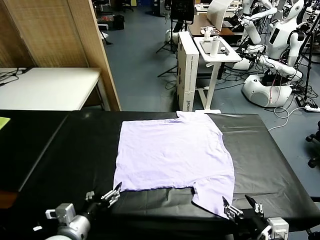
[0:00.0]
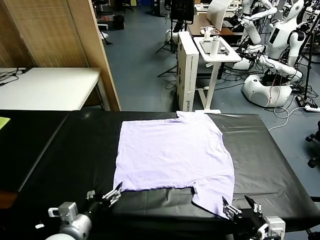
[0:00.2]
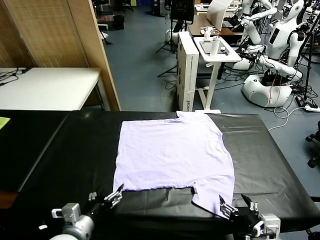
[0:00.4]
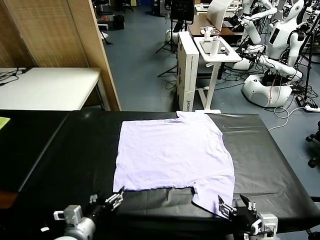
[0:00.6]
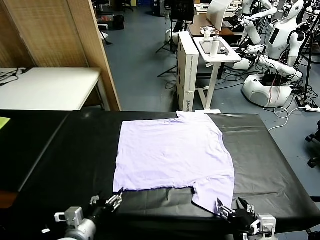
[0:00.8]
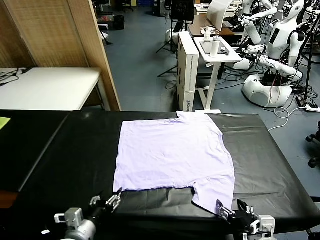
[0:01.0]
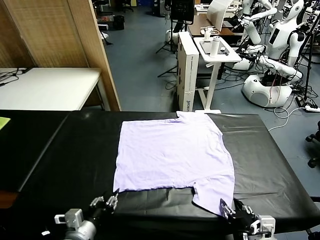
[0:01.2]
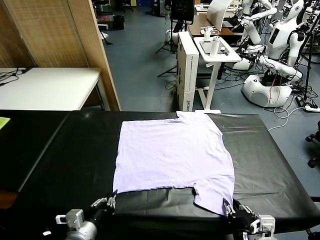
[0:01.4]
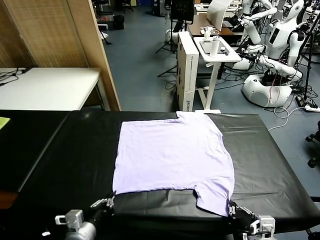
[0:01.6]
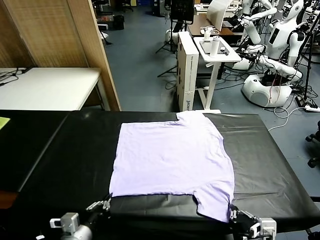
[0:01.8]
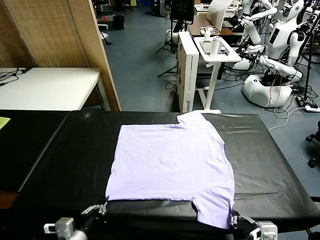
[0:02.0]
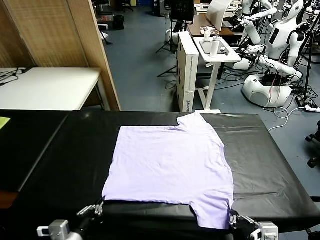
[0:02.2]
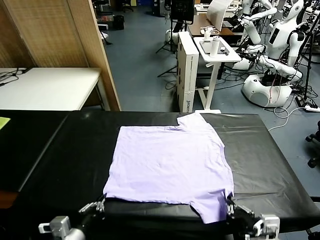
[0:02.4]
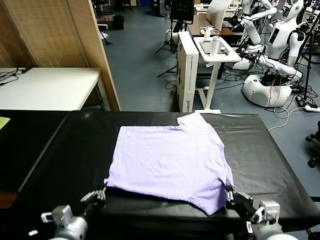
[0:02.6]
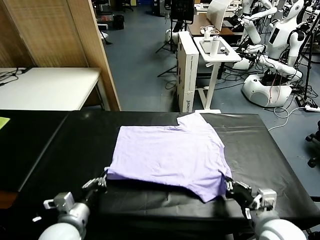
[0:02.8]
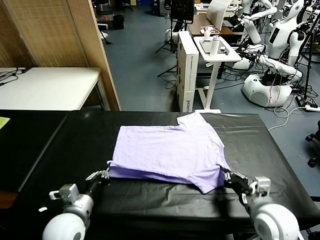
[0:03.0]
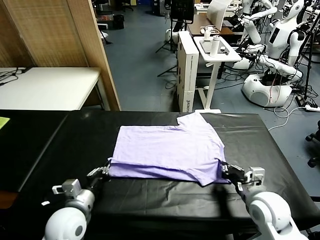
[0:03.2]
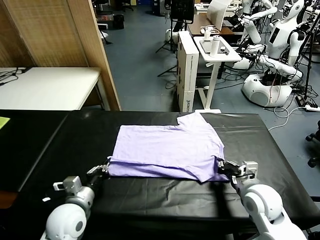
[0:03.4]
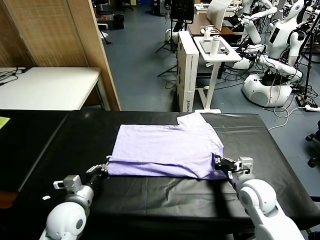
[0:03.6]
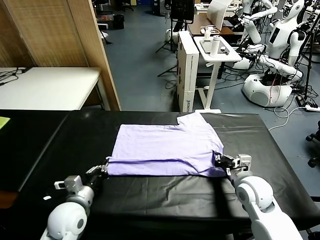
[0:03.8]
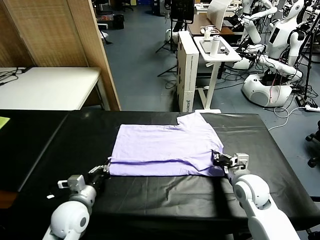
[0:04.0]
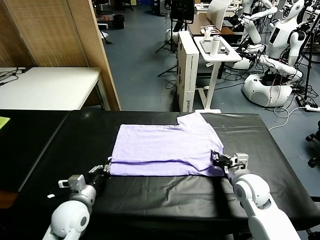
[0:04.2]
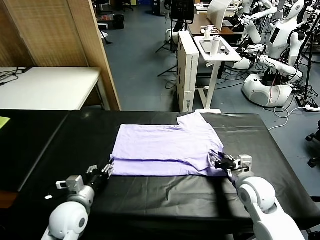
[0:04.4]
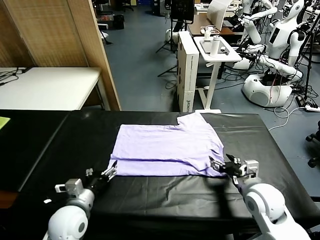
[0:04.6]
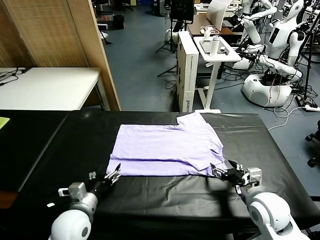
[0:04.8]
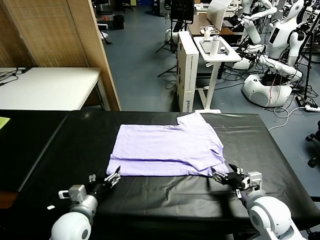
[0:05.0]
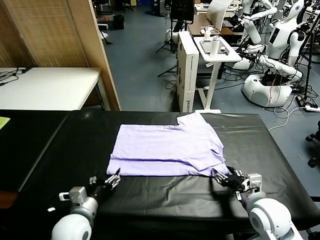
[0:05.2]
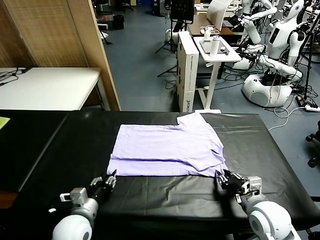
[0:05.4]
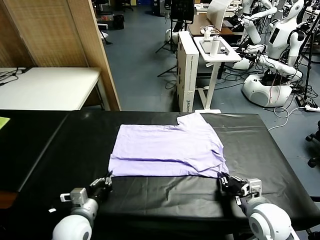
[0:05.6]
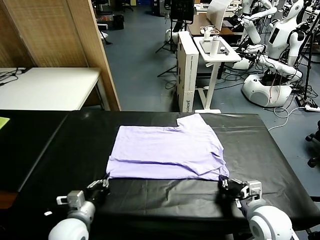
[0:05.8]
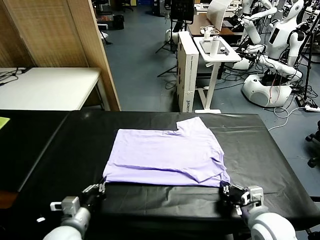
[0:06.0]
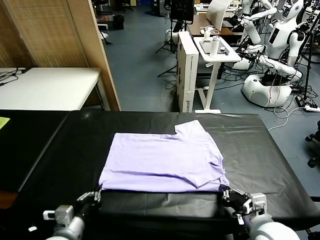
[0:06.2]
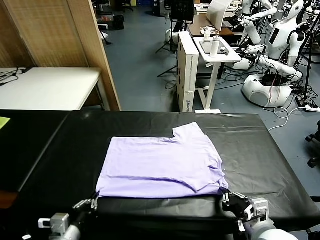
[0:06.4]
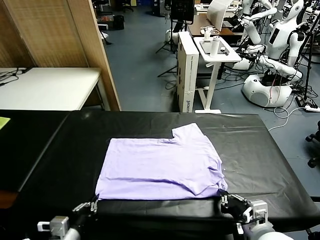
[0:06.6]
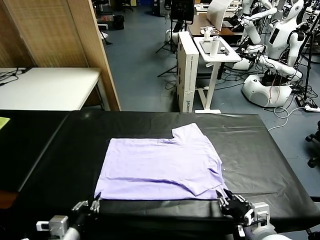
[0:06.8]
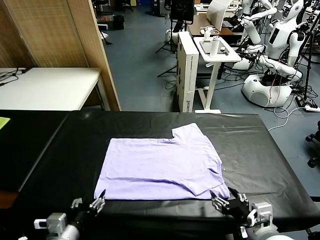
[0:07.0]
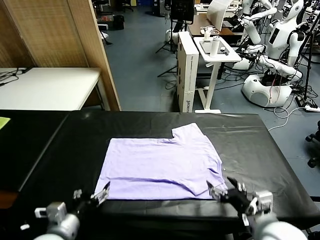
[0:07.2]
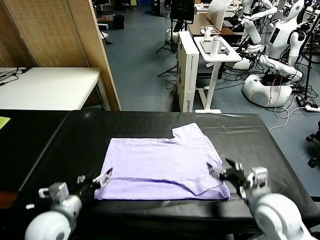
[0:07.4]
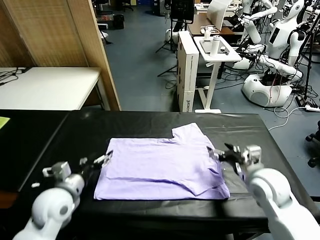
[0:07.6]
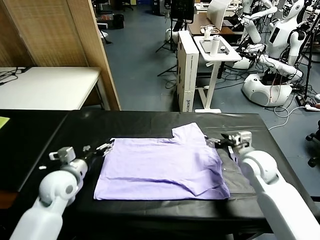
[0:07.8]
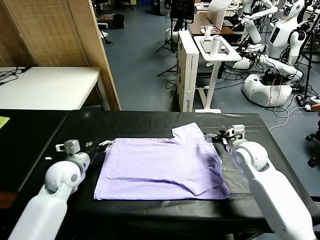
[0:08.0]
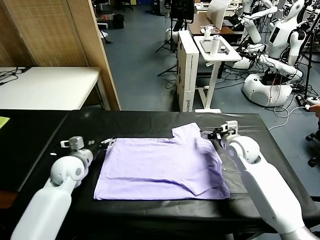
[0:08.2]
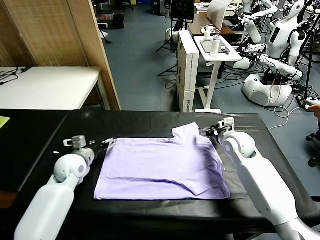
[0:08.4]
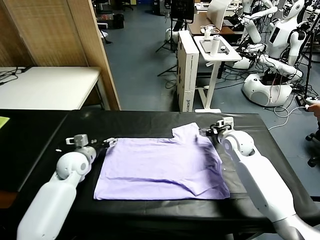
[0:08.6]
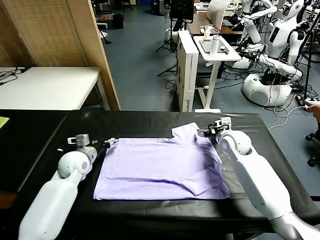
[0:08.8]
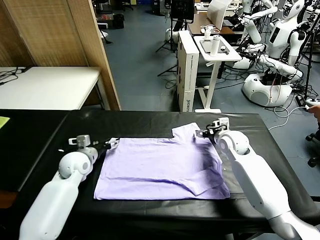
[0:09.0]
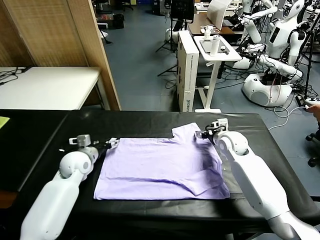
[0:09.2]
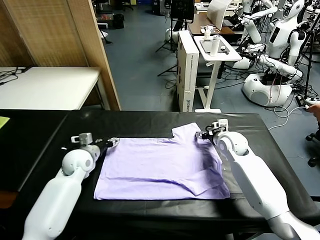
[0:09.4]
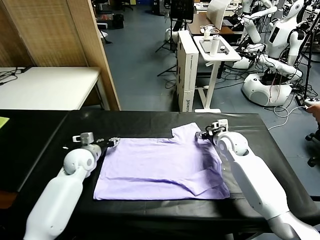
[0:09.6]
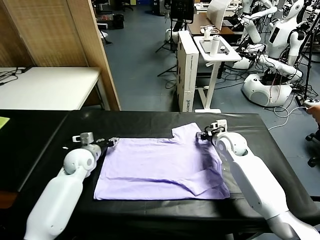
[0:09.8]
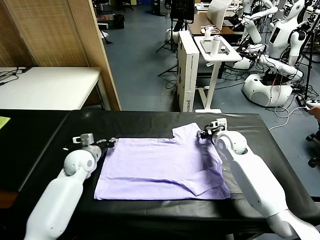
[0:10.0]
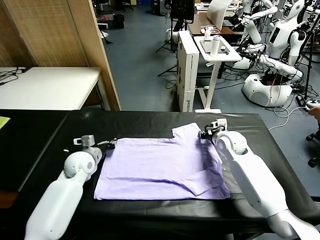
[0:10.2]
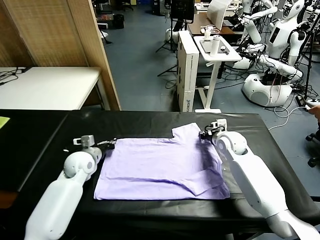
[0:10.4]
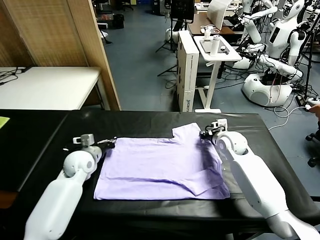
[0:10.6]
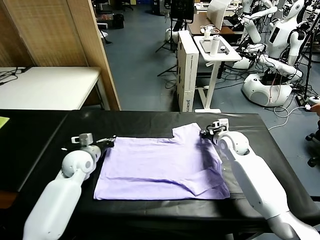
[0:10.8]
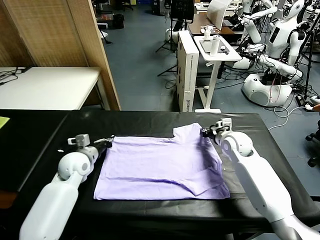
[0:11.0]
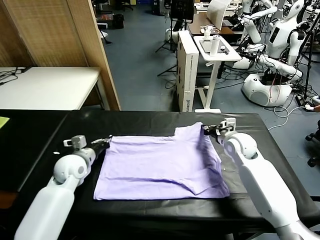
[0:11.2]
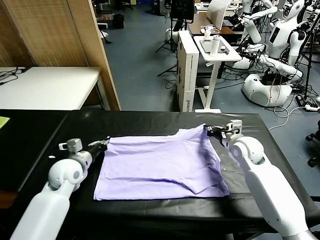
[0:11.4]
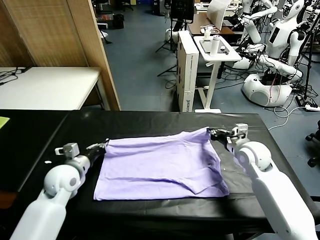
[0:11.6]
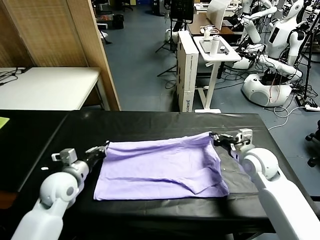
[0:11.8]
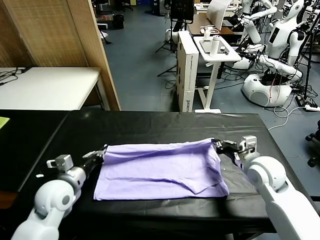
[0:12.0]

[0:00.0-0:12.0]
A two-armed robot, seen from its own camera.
Task of the whole recording: fold and organize the clothes.
Step, 0.0 to 1.6 s: use both grippers simultaneously to clamp the lower edge of the clothing fabric.
Step, 2.0 to 4.4 s: use both grippers to drag the lower edge of the fabric forward and fold it over the upper edge.
Step, 4.6 to 6.8 s: Drag the clothes downward with both gripper.
Step, 7.2 to 10.8 s: use both grippers simultaneously to clamp the upper edge of the clothing fabric.
1.6 to 3.0 s: The right gripper travels forward by approximately 15 cm, while the left gripper shifts some 10 cm forward.
3.0 to 4.4 s: The left gripper opens its fingers. Meanwhile the right gripper opens up.
4.4 to 6.0 s: Both grippers move backward, some 10 cm. The right gripper closes, while the left gripper closes.
6.0 to 7.6 s: The left gripper goes approximately 15 cm forward and upward, and opens. The right gripper moves forward, some 25 cm, and opens its fingers.
7.6 to 9.0 s: The two grippers go about 10 cm forward.
9.0 to 10.4 s: The right gripper closes. Meanwhile the left gripper closes up.
10.4 to 12.0 s: The two grippers go about 15 cm backward.

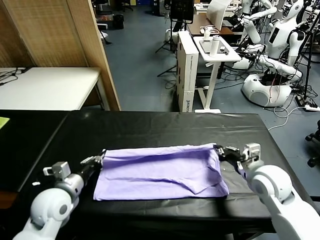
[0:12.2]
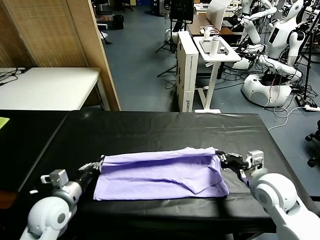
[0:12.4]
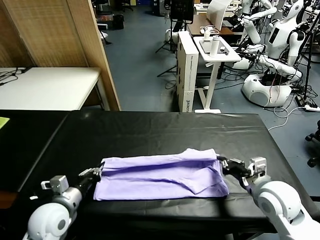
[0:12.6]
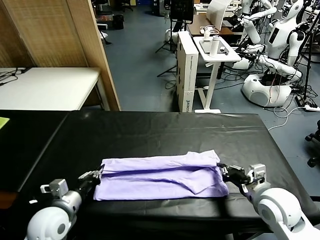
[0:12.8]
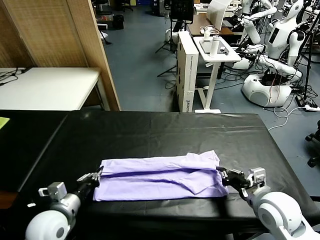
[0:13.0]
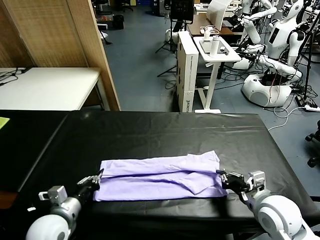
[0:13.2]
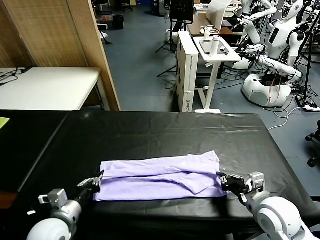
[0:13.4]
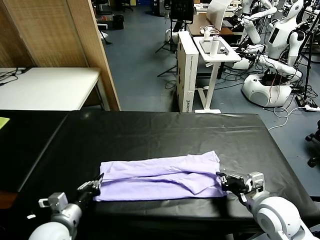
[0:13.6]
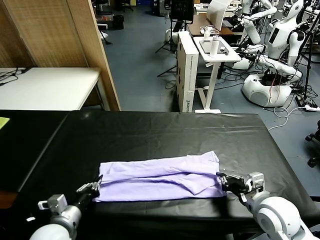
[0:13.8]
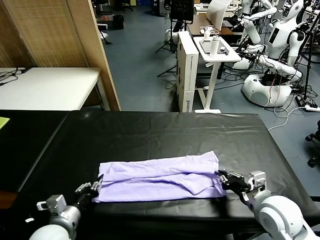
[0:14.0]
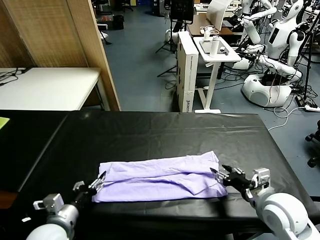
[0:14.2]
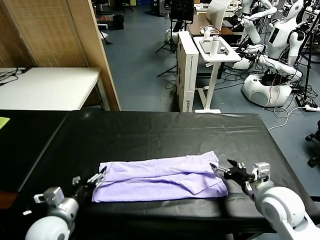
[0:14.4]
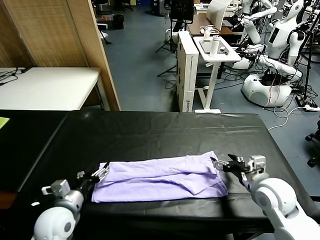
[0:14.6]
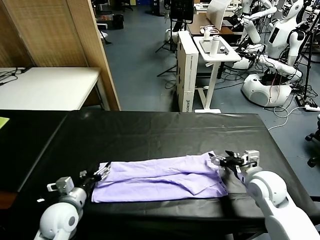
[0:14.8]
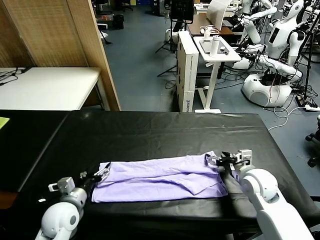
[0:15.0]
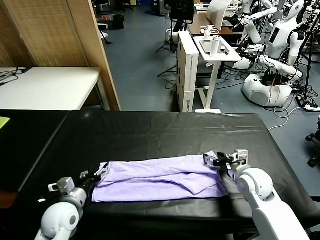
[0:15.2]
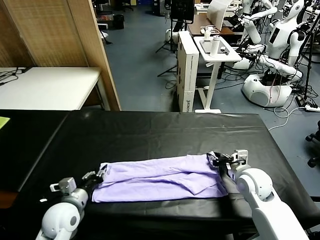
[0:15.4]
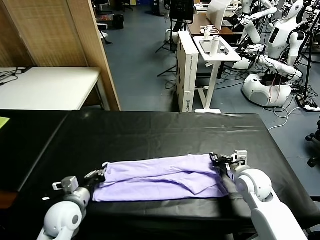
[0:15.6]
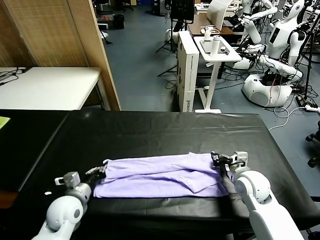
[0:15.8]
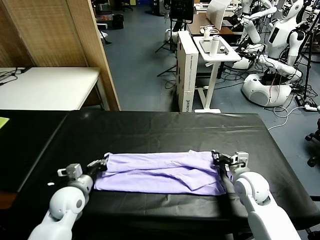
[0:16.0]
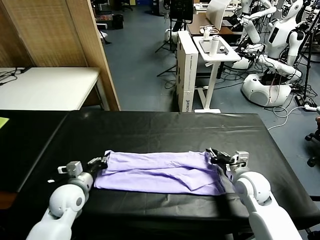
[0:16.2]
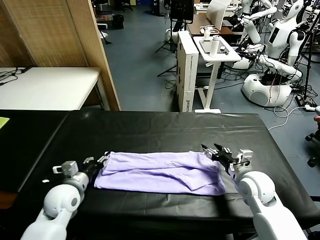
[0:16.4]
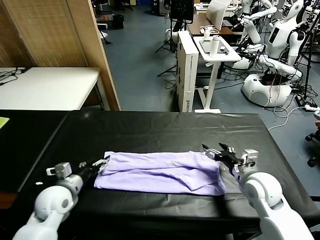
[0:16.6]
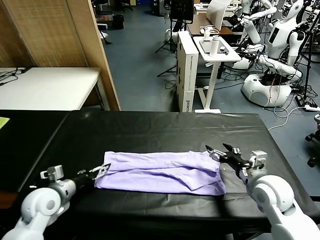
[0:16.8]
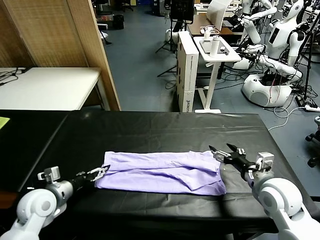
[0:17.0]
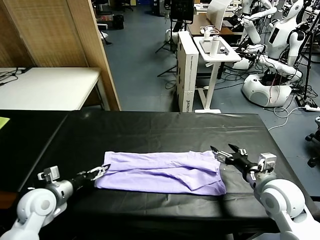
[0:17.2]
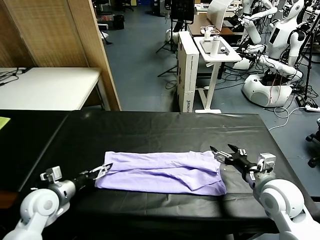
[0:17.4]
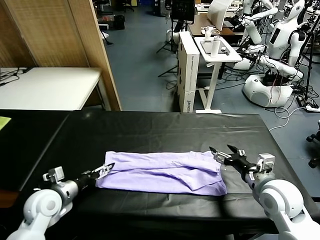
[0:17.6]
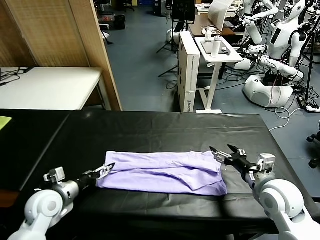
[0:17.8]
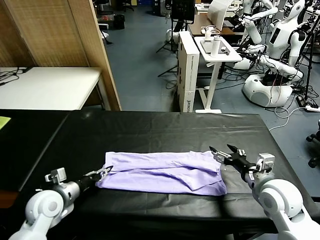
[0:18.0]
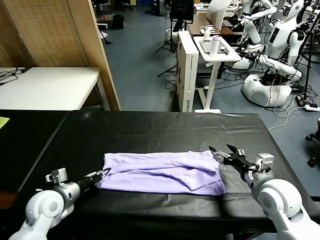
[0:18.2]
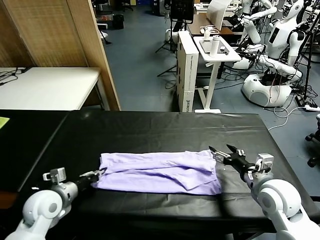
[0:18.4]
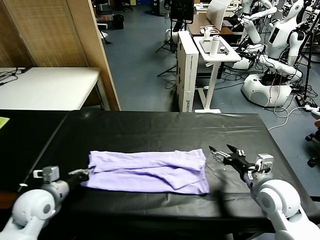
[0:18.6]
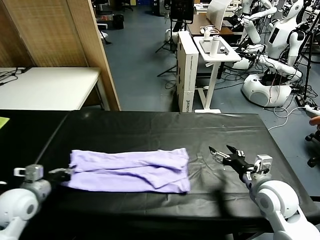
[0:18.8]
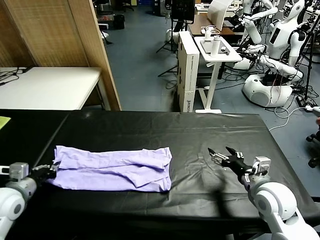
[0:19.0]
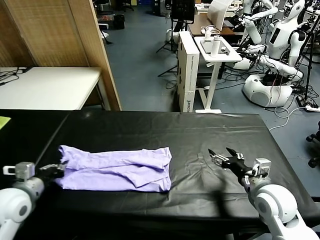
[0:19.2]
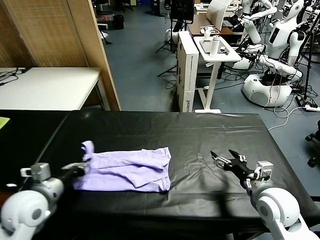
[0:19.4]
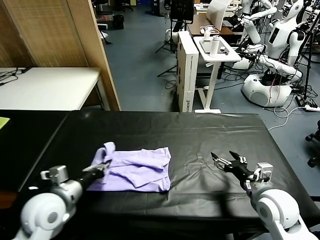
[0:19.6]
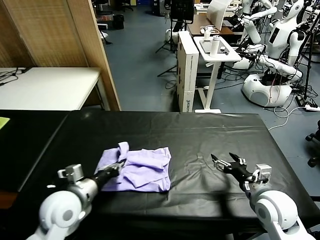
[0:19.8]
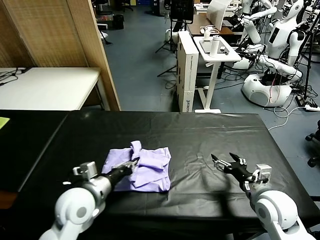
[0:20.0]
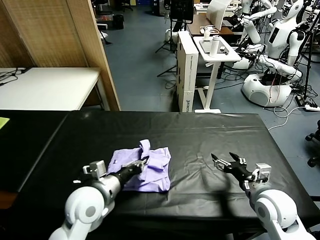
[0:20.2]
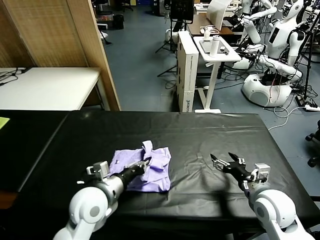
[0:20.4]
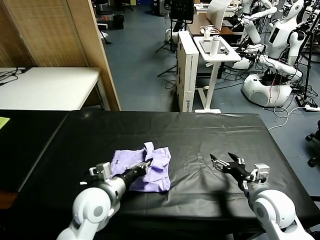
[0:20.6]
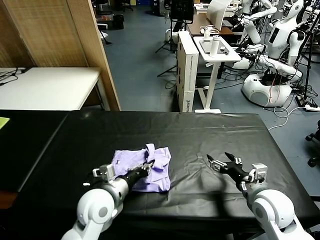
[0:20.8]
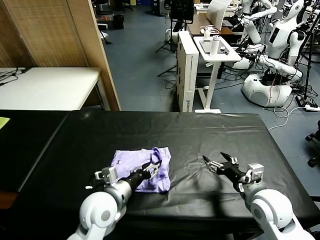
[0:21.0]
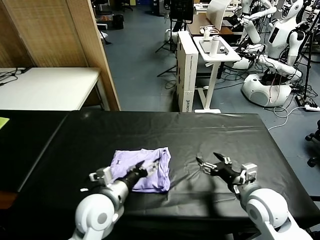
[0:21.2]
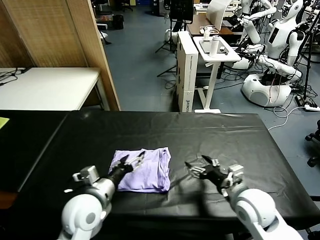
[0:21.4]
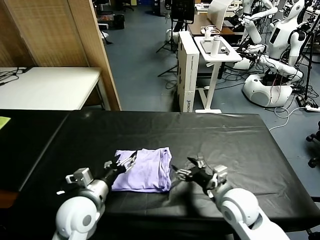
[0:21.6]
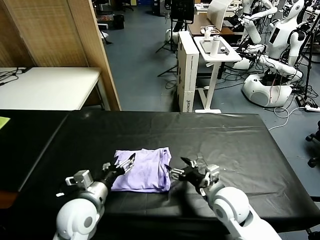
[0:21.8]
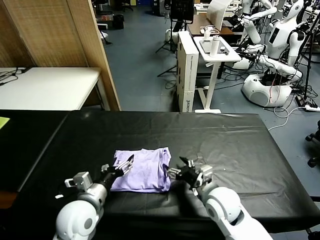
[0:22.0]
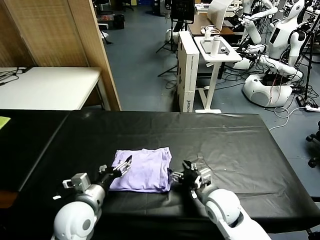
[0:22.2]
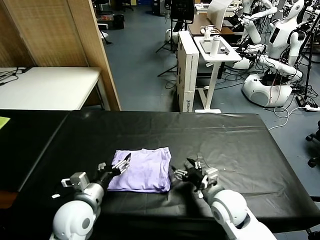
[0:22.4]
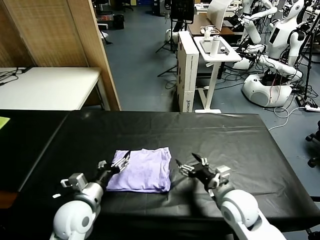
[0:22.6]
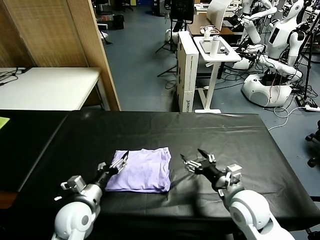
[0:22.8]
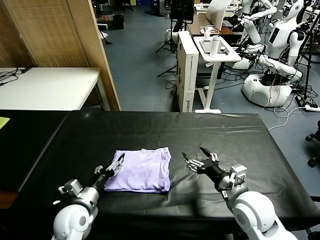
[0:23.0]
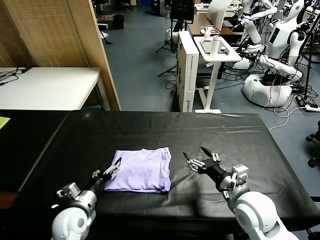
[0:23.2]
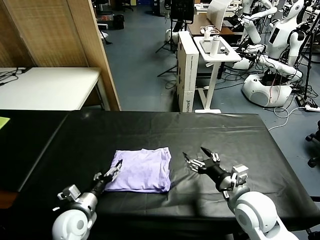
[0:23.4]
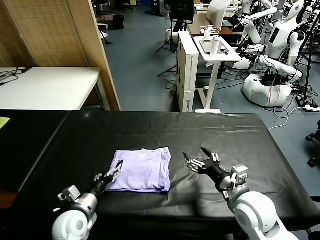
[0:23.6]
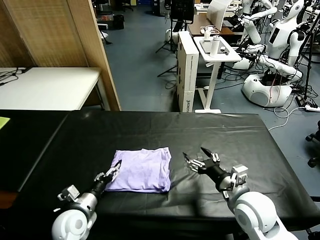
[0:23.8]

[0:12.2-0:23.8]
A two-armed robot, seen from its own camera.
Task of the whole recording: fold and organize the clothes.
Step, 12.2 to 14.2 s: use both grippers to drag the upper edge of the fabric backward and fold it over the lower edge.
Step, 14.4 to 18.2 s: use the left gripper to clamp the left edge of the fabric.
Step, 18.6 to 21.2 s: use the left gripper to drag the left edge of the fabric to the left and folds it over the right edge.
12.2 to 13.6 s: Both grippers move backward, about 5 cm.
13.6 to 15.0 s: The left gripper heads forward, covering about 5 cm, and opens. Meanwhile the right gripper heads forward, covering about 10 cm, and opens up.
15.0 to 16.6 s: The right gripper changes place by about 5 cm, and closes and opens again, while the left gripper changes place by about 5 cm, and closes, then reopens.
16.6 to 18.0 s: The left gripper closes its fingers.
18.0 to 19.4 s: The left gripper moves upward, some 10 cm, and reaches roughly 5 cm to the left, then returns.
19.4 to 21.0 s: The left gripper goes approximately 15 cm to the right, and opens up.
21.0 to 22.4 s: Both grippers move to the left, approximately 5 cm. The left gripper opens up.
22.4 to 23.8 s: The right gripper moves upward, some 5 cm. The left gripper shifts about 10 cm downward and to the left.
